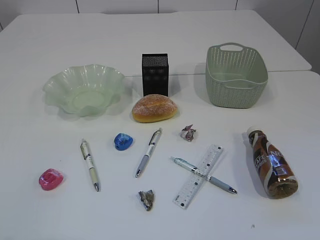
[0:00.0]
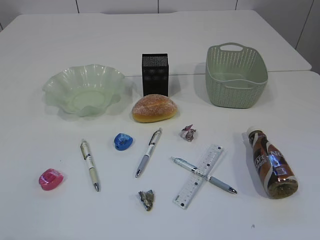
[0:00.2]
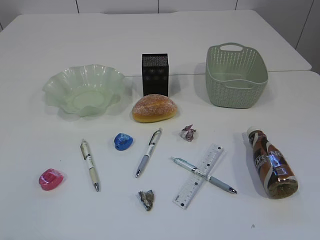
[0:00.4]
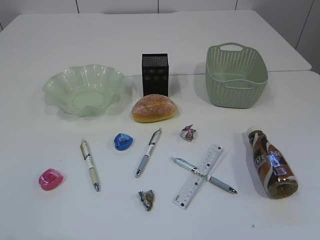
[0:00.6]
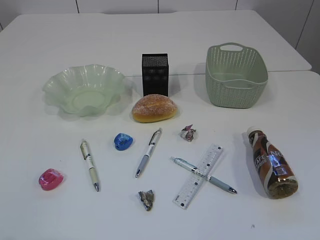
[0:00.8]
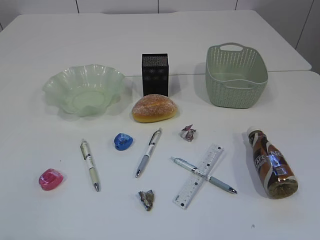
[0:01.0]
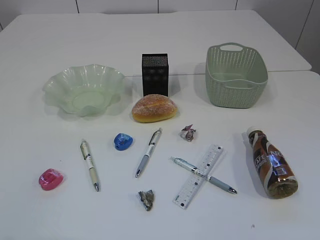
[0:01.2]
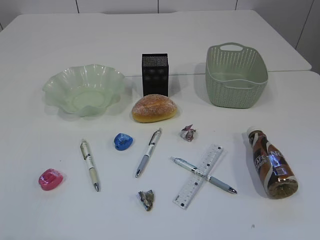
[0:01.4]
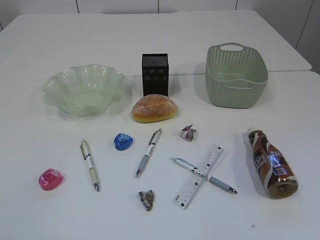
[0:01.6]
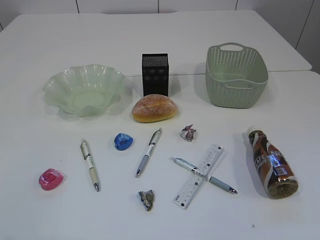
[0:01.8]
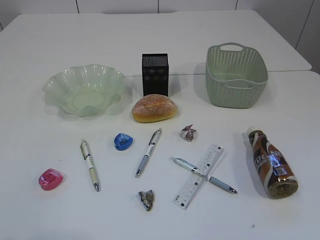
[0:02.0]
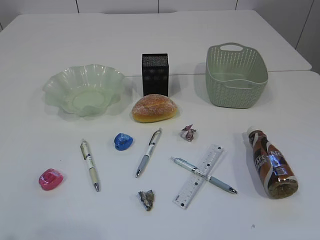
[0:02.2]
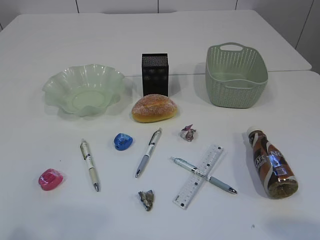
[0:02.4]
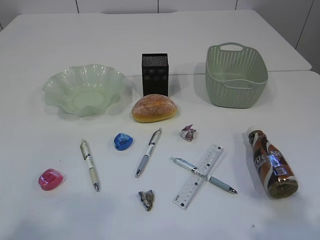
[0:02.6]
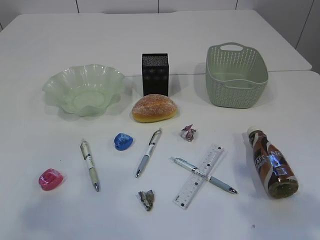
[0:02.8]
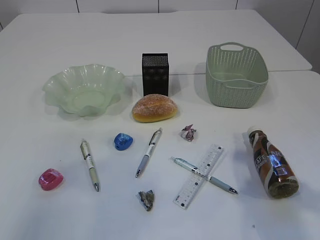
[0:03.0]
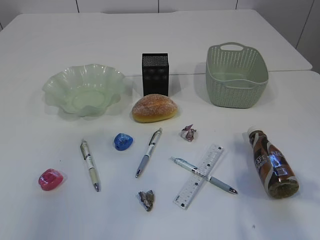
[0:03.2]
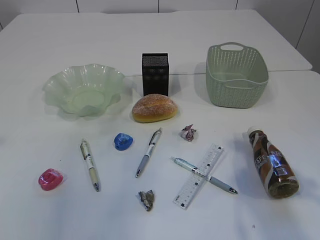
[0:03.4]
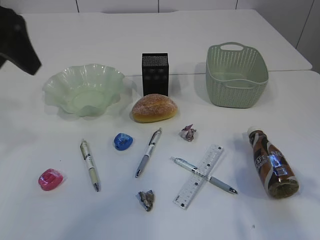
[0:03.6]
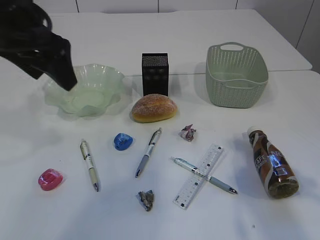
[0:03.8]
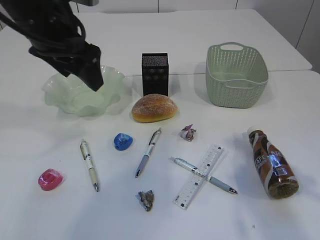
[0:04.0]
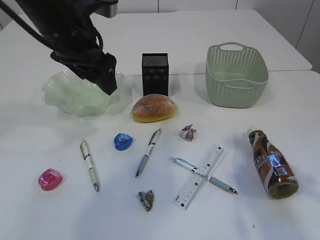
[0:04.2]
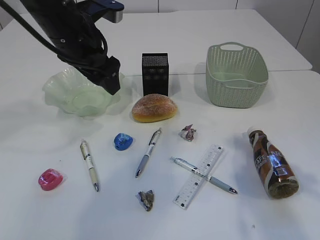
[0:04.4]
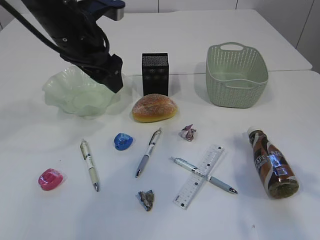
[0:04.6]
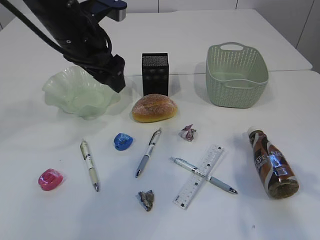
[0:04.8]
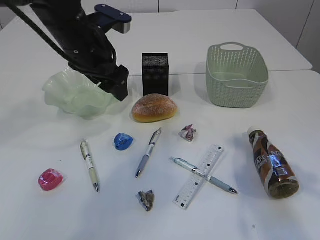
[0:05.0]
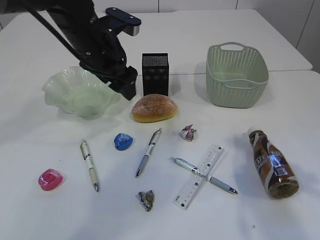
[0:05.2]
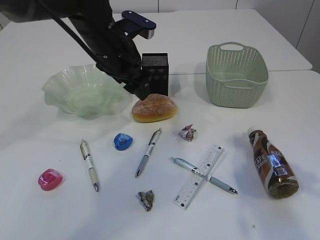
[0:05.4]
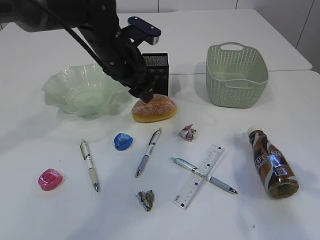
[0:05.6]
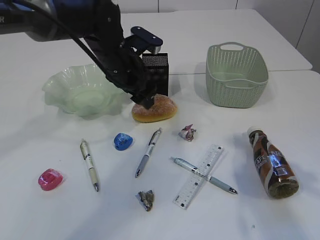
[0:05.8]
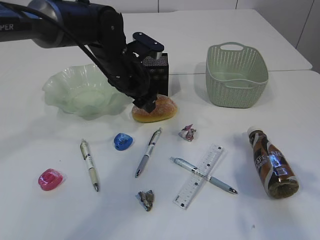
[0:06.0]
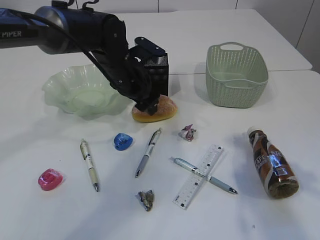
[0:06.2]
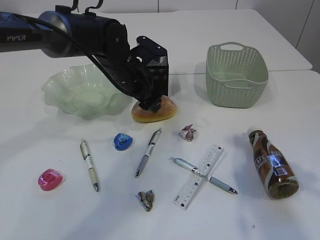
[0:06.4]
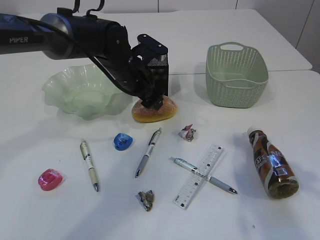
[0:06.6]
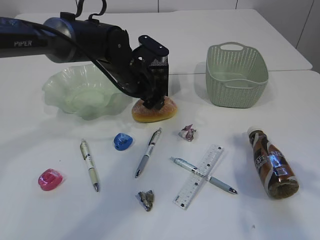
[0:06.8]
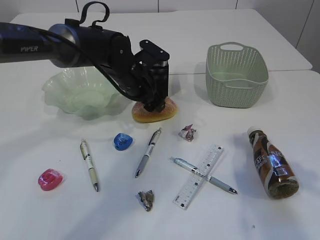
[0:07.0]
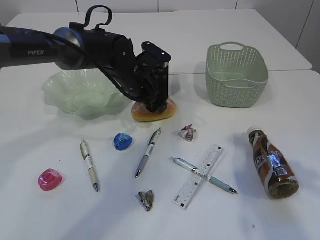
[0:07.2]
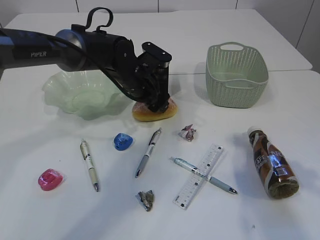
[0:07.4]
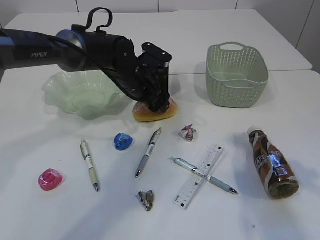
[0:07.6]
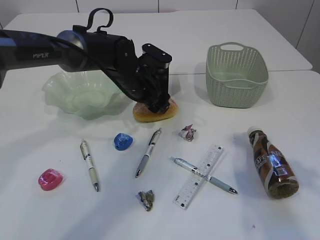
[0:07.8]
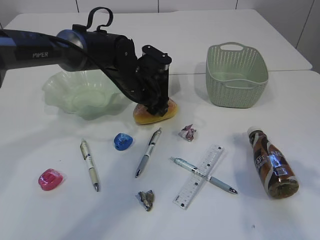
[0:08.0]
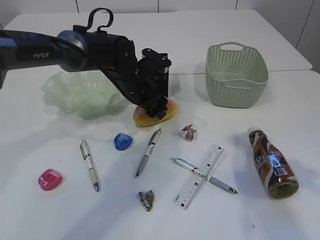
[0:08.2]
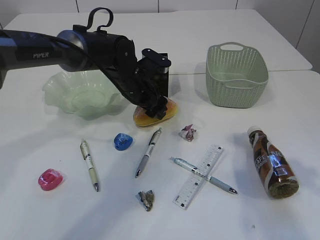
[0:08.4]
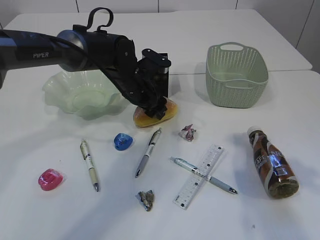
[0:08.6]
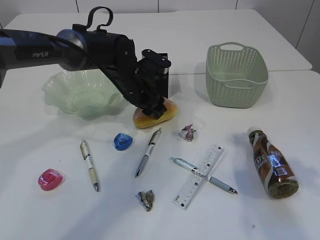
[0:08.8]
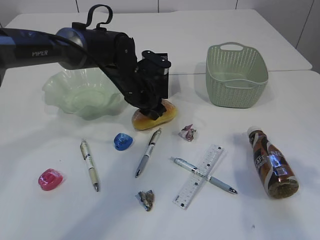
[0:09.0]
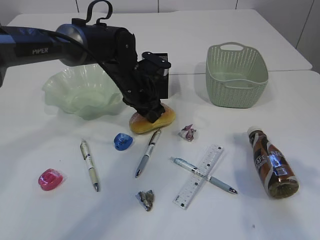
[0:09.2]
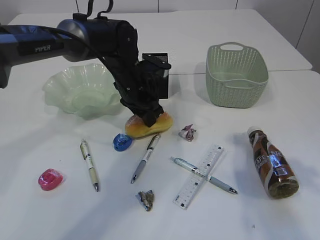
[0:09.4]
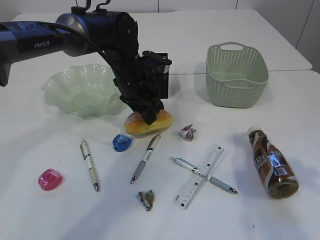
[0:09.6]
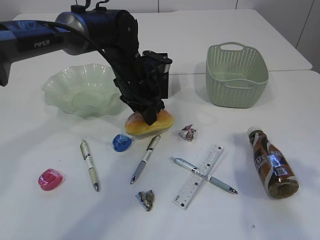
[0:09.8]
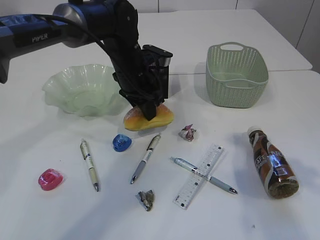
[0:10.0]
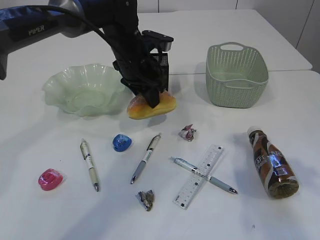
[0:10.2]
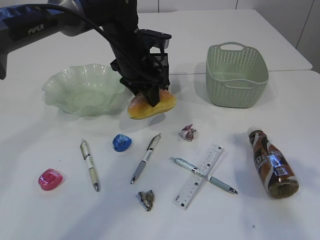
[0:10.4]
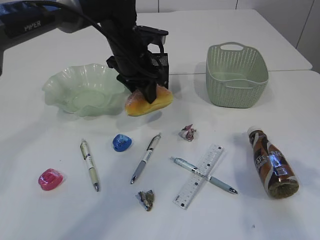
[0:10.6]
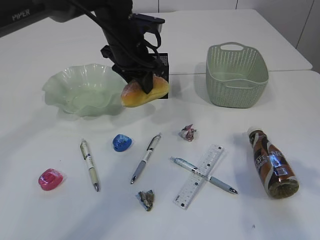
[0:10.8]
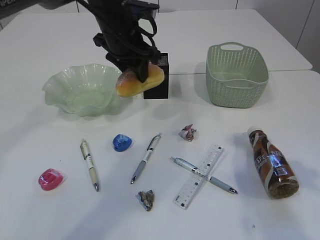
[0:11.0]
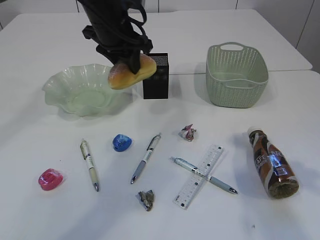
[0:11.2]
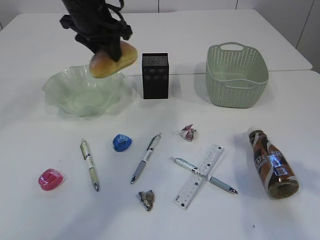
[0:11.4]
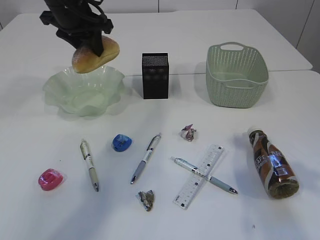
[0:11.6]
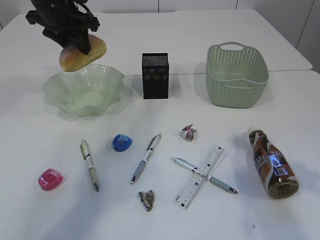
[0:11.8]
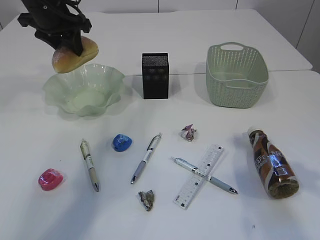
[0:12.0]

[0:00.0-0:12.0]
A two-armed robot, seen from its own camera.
0:01.6 to 0:03.0: The right gripper heads forward, covering approximately 15 cm. The left gripper goes some 20 cm forward and upward.
0:03.0 to 0:04.4: The left gripper heads forward, to the right and downward, covering approximately 30 cm.
0:04.4 to 0:06.0: The left gripper is displaced downward, to the right and forward by some 10 cm.
0:06.0 to 0:07.6: The left gripper ends up approximately 5 cm from where it was.
0:07.6 to 0:09.0: The left gripper closes up.
0:09.0 to 0:10.4: The left gripper heads upward, covering about 5 cm.
0:10.4 to 0:12.0: The left gripper moves to the left and upward, approximately 15 cm.

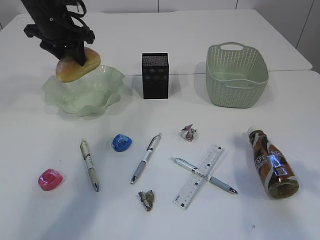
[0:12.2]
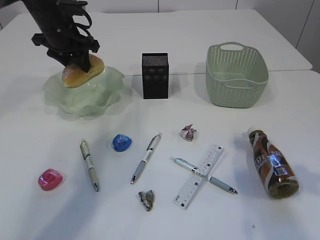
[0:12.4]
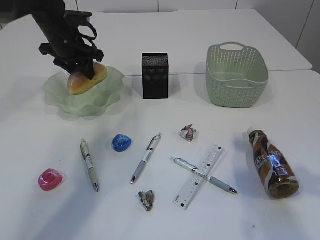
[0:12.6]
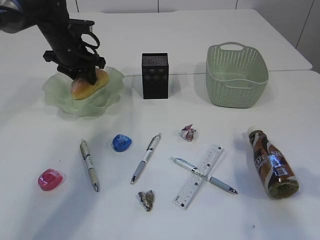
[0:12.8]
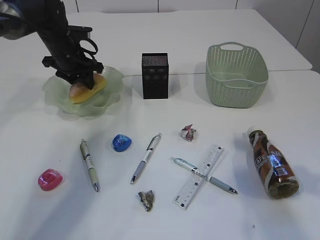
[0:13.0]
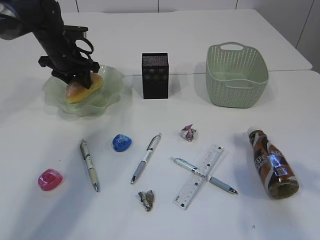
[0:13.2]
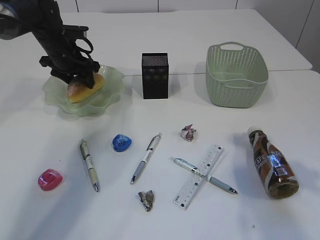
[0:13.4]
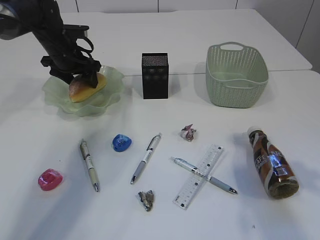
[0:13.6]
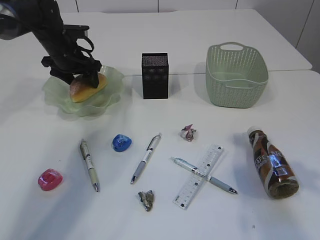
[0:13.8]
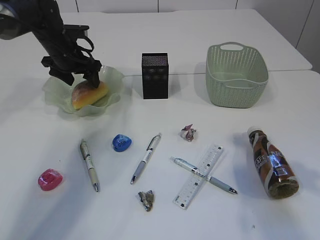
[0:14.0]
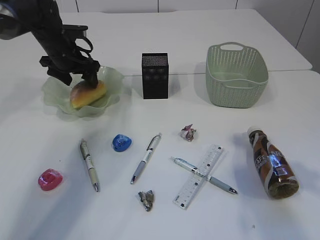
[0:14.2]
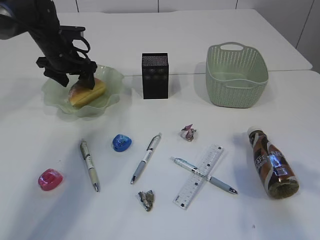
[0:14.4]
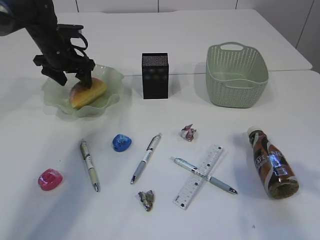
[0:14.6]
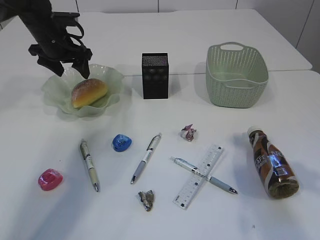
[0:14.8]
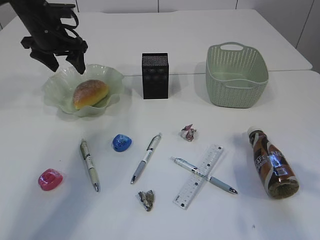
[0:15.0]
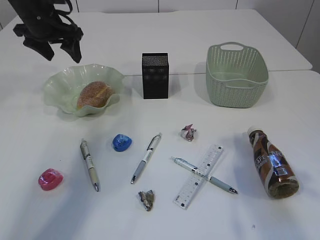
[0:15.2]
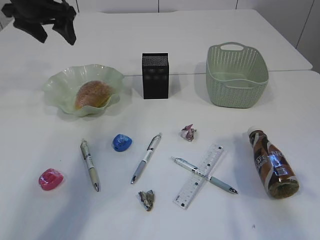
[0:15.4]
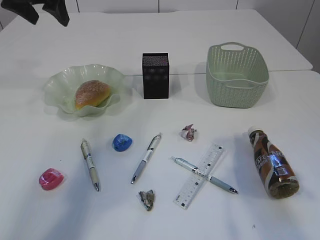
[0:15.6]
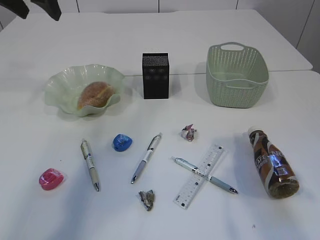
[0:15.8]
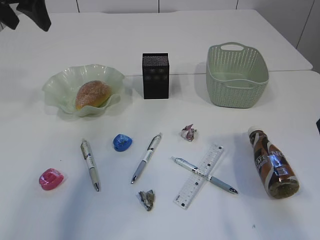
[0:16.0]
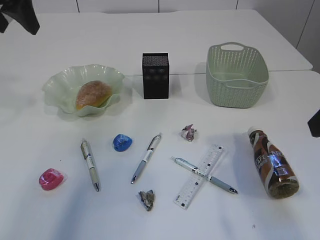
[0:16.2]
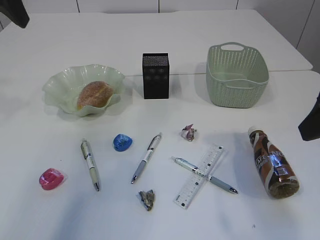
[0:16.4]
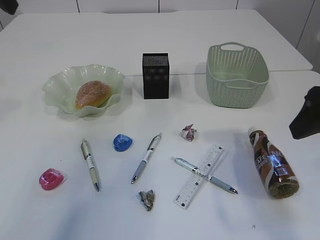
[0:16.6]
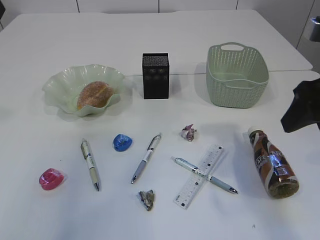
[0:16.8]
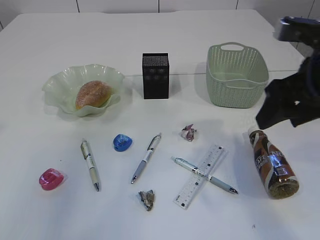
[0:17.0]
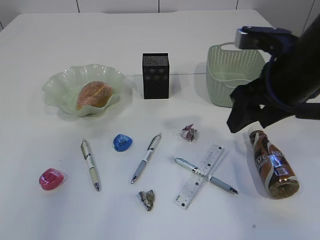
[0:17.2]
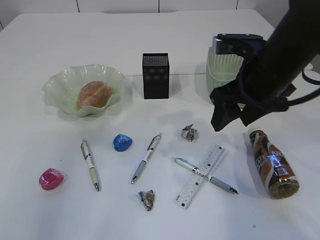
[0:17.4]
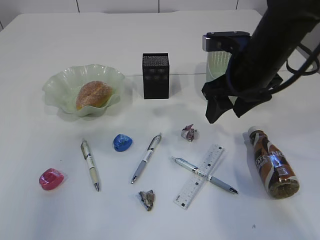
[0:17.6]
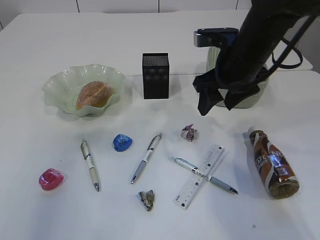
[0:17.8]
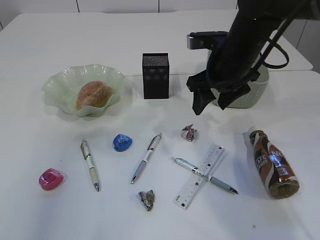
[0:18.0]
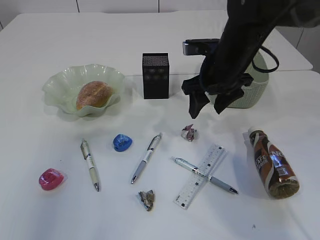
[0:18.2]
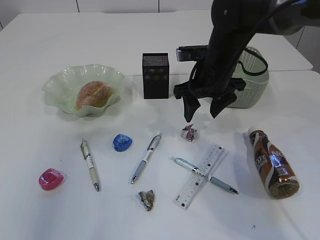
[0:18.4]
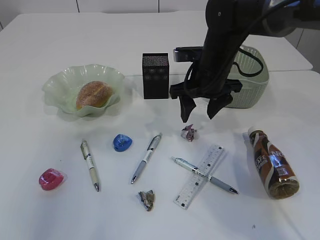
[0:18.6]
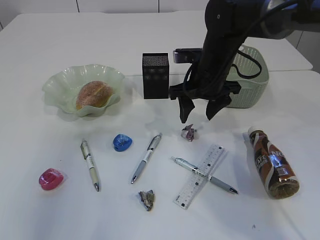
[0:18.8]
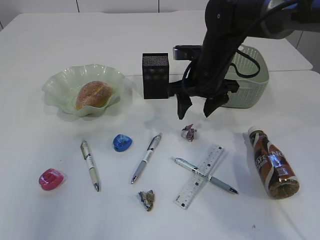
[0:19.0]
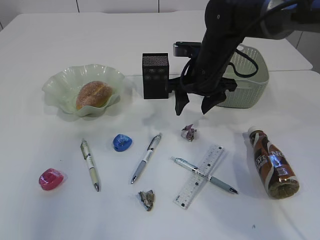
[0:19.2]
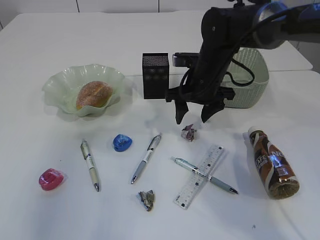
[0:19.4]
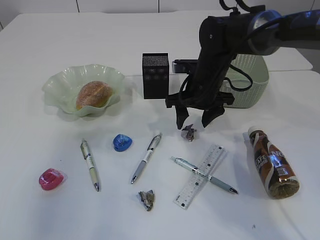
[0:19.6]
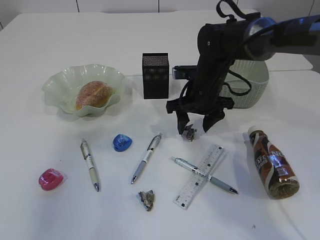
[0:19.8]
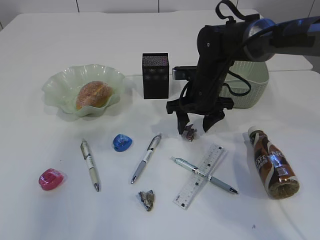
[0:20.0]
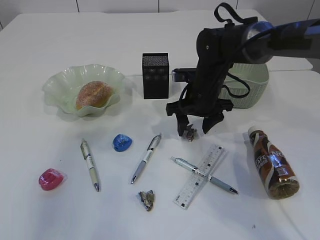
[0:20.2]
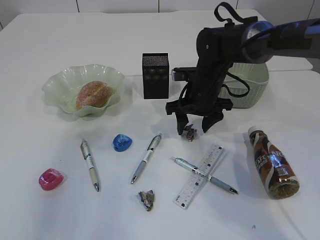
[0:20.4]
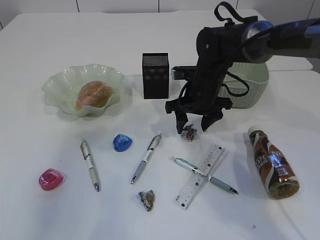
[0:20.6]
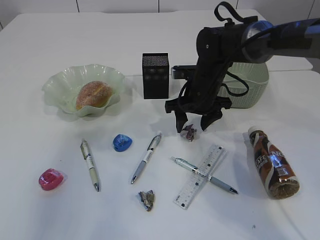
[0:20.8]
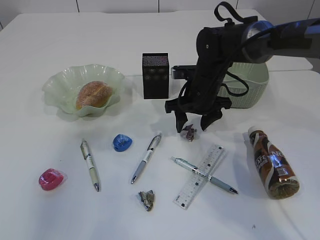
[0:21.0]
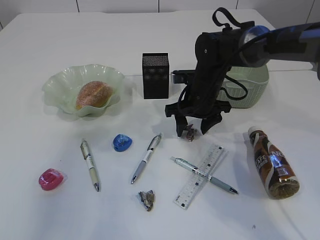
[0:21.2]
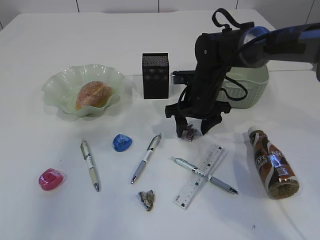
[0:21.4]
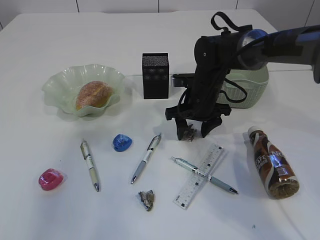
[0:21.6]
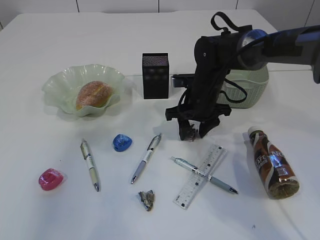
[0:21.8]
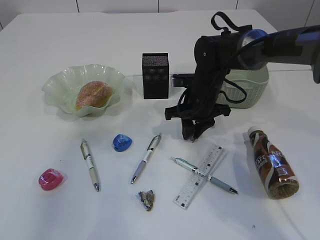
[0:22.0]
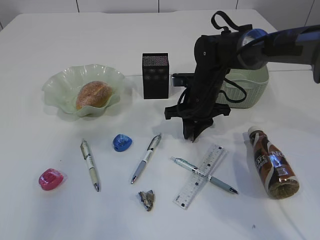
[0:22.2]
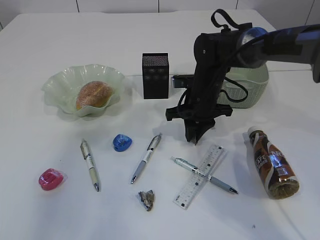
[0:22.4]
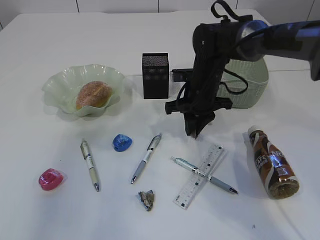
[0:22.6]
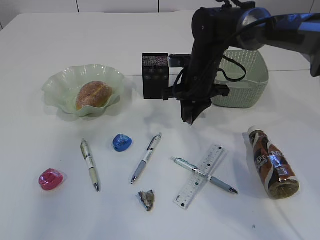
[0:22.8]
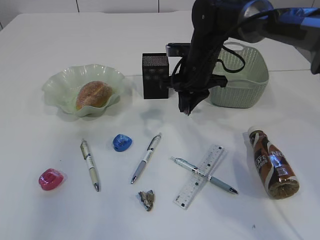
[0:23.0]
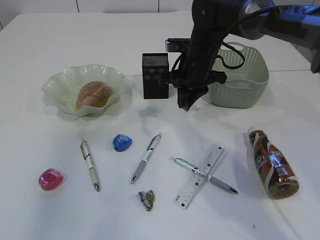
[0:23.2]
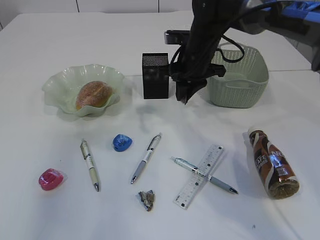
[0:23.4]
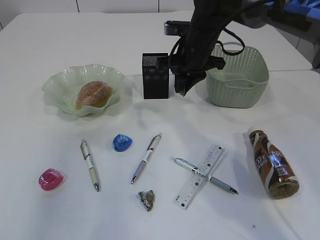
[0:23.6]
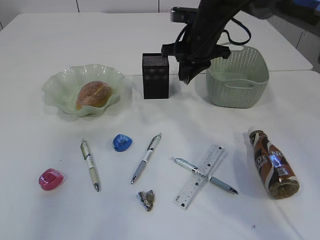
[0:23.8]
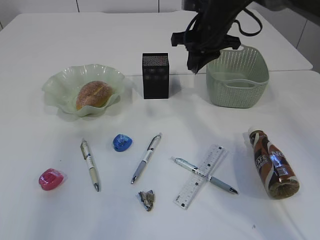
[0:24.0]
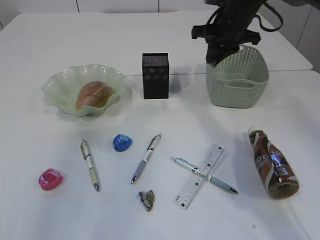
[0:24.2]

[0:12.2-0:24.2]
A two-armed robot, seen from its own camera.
Step, 0:12.2 to 0:15.2: place the bread in the plate.
Step, 0:15.4 to 0:23.2: Pick up the waste paper.
0:12.2 to 0:13.8: The left gripper is displaced downward by some 10 cm, and opens its fingers.
0:13.8 to 0:15.2: The left gripper travels upward by about 10 cm.
0:15.2 to 0:16.6: The left gripper moves backward and upward, approximately 20 cm.
0:16.6 to 0:18.2: The right gripper travels forward, to the left and downward by about 25 cm. The left gripper heads backward, covering about 10 cm.
0:18.2 to 0:19.8: The right gripper moves downward, about 5 cm.
0:19.8 to 0:21.2: The grippers make only small movements.
0:21.2 to 0:22.6: The right gripper closes its fingers.
0:22.6 to 0:24.2: The right gripper shifts about 15 cm upward, forward and to the right.
